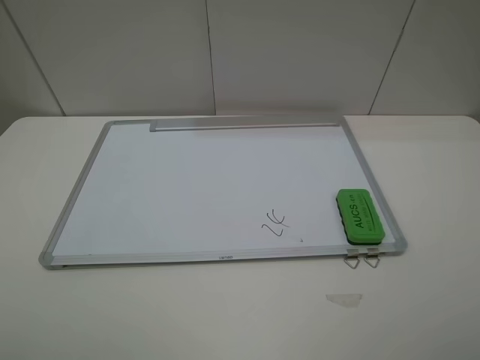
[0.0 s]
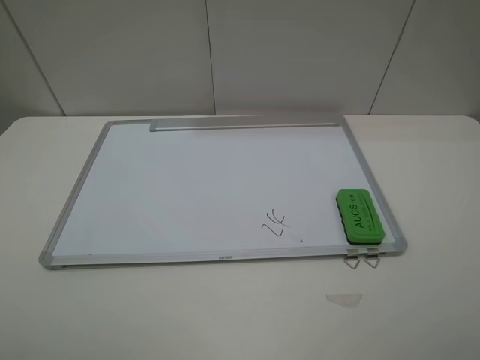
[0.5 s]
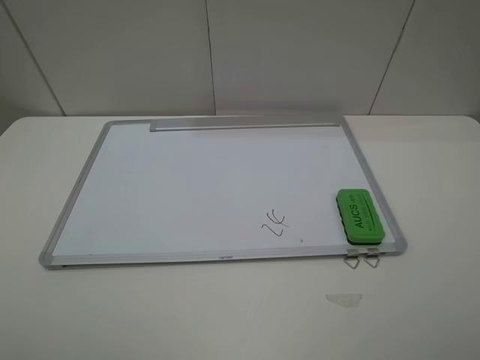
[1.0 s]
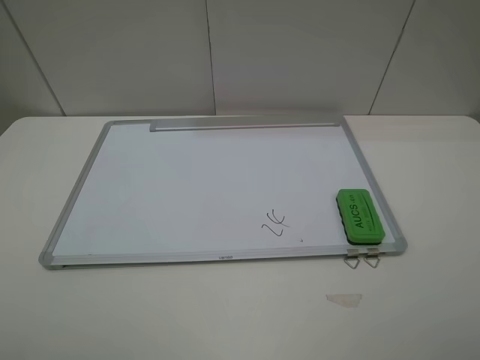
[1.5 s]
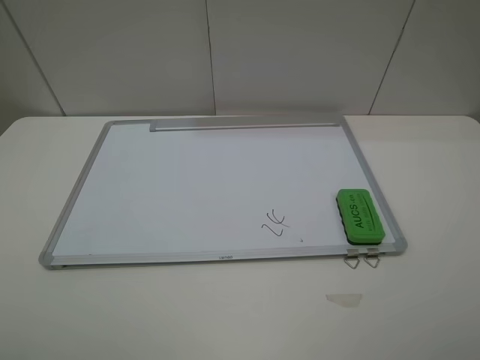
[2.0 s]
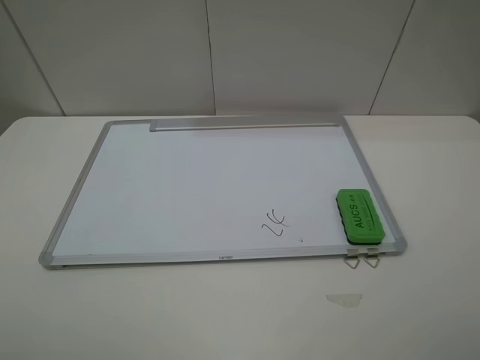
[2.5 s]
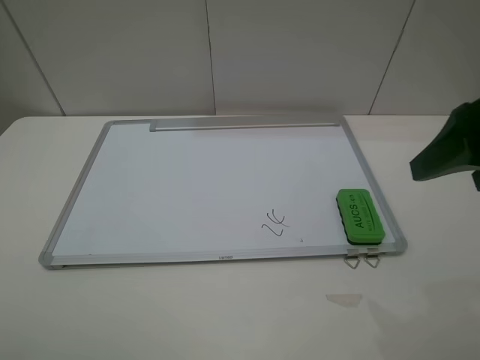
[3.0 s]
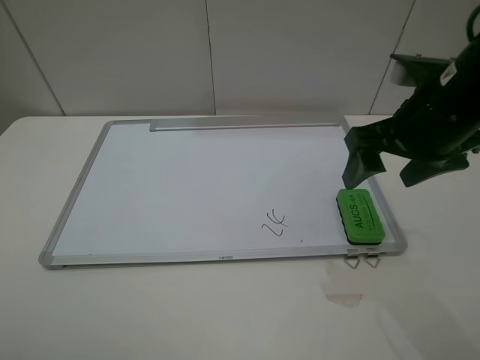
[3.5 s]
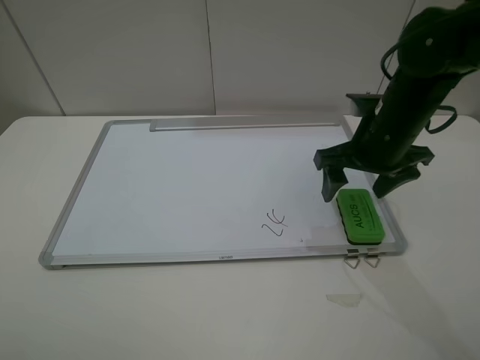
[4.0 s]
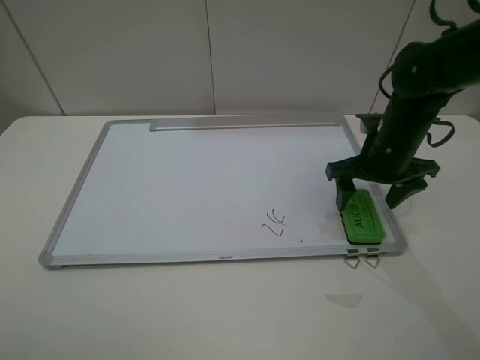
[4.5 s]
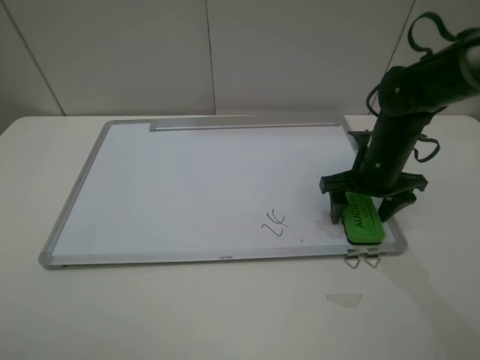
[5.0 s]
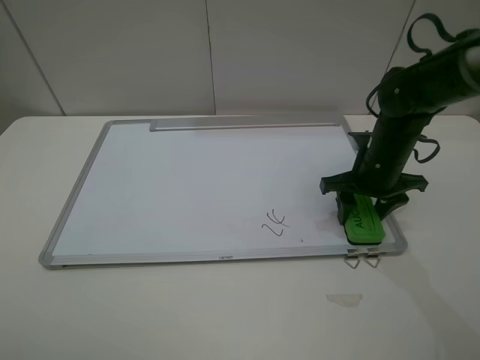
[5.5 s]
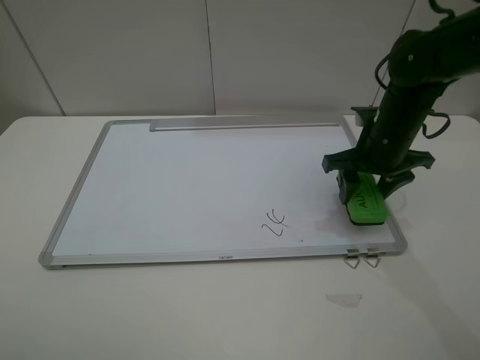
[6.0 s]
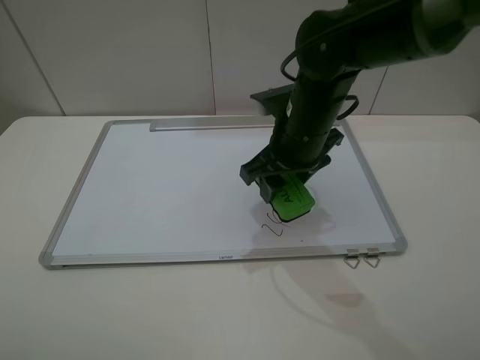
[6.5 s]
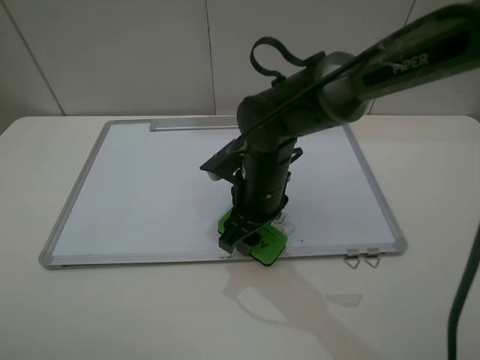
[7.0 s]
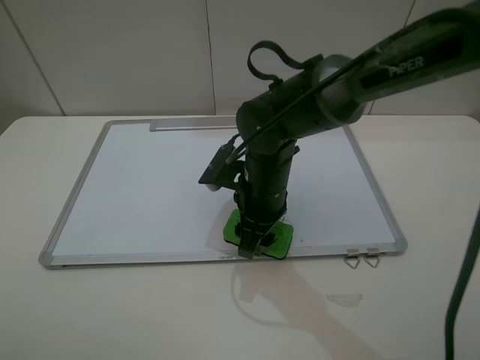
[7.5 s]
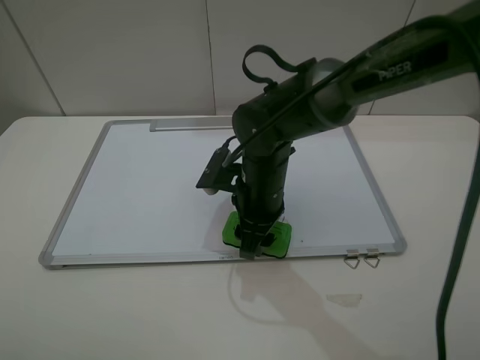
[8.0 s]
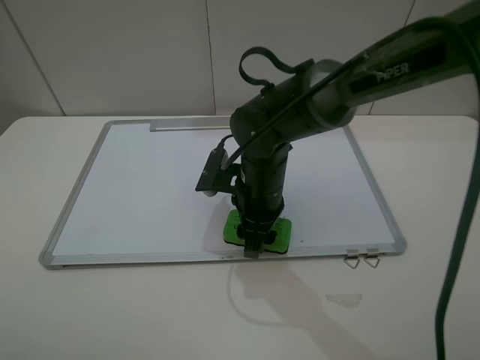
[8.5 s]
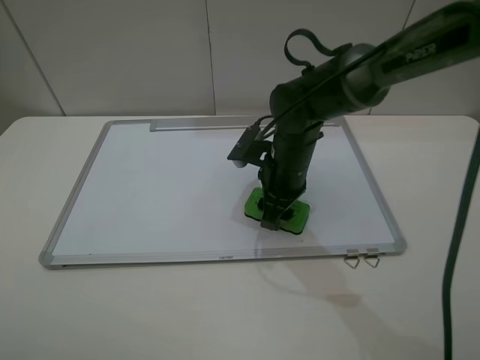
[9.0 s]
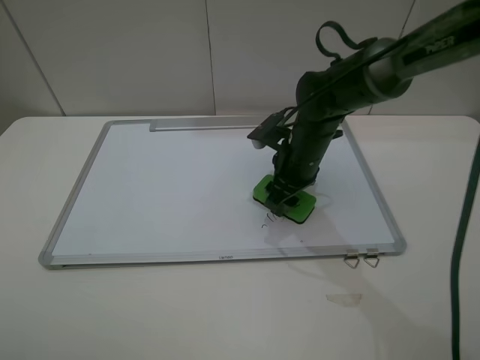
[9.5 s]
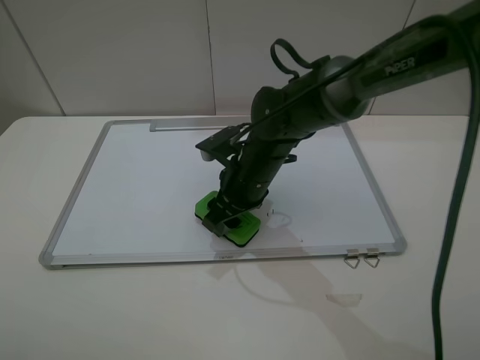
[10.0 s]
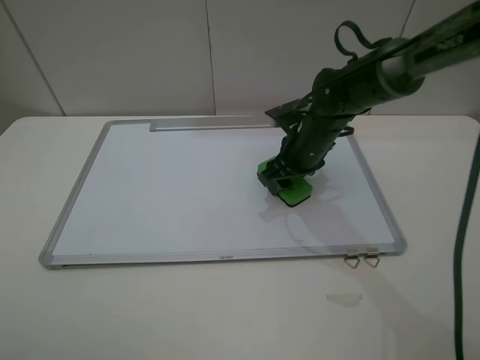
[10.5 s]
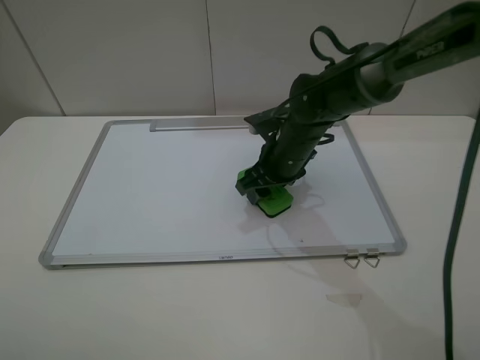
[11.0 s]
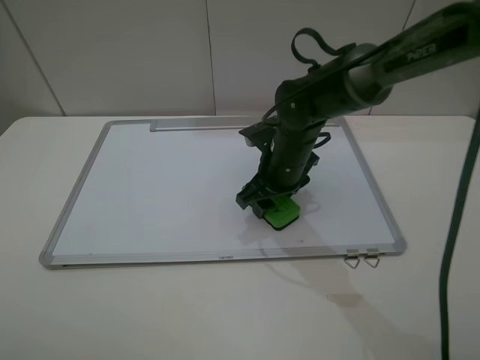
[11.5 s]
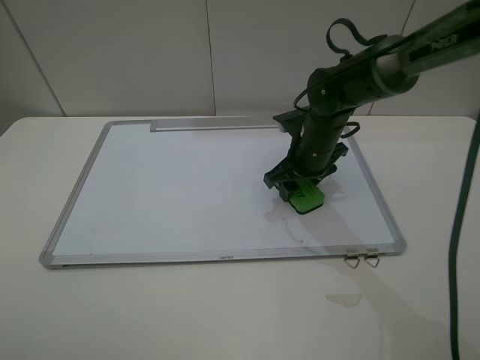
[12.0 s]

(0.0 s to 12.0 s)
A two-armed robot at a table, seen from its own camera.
Step, 0.0 s - 5.5 s: Grasp the eraser with the right gripper.
0.0 s - 2.0 s: The two grippers keep their place.
2.0 s - 4.0 s: The right gripper shifts approximately 30 cm forward.
4.0 s - 6.0 s: The right gripper closes up.
6.0 s - 8.0 s: The right gripper travels to the left by roughly 15 cm.
10.0 s - 12.0 s: The right gripper goes left and right, approximately 10 cm each way, reversing 2 times.

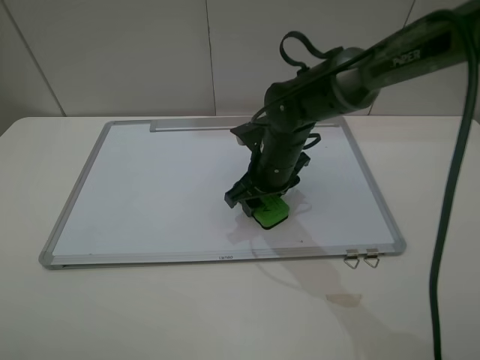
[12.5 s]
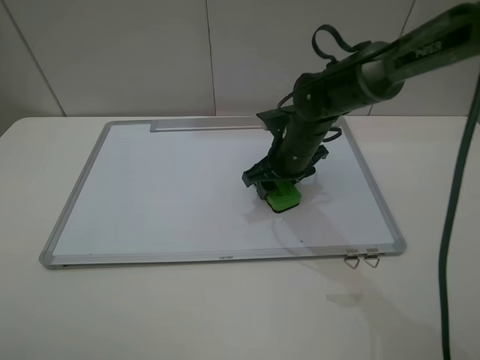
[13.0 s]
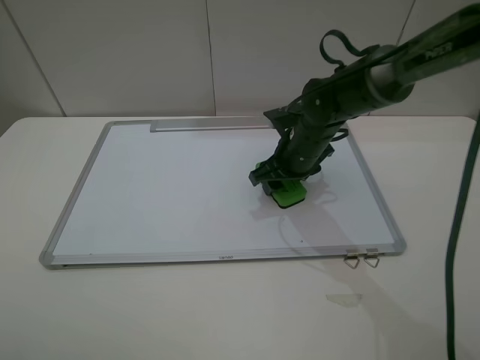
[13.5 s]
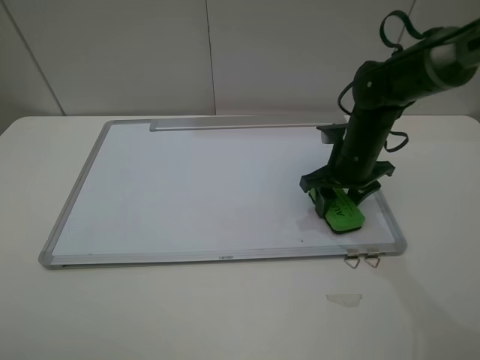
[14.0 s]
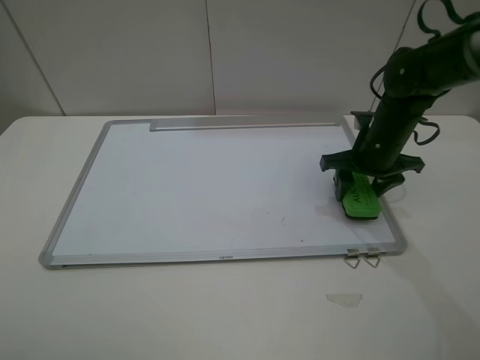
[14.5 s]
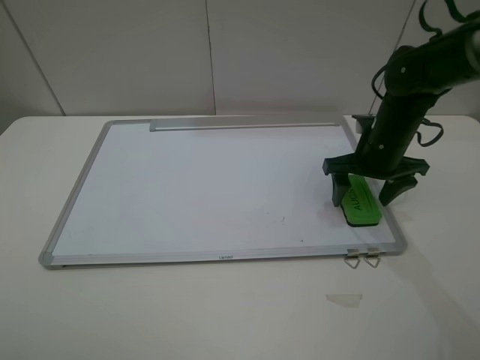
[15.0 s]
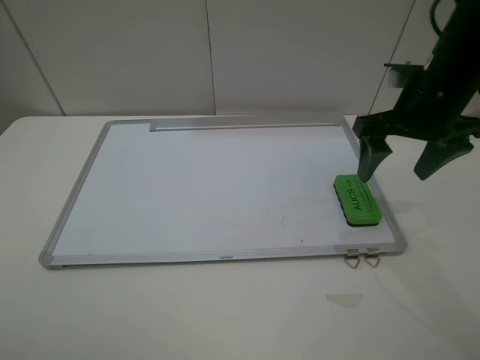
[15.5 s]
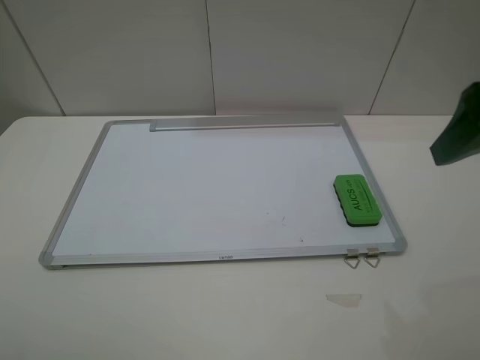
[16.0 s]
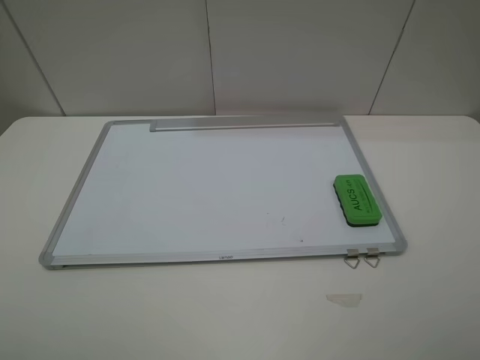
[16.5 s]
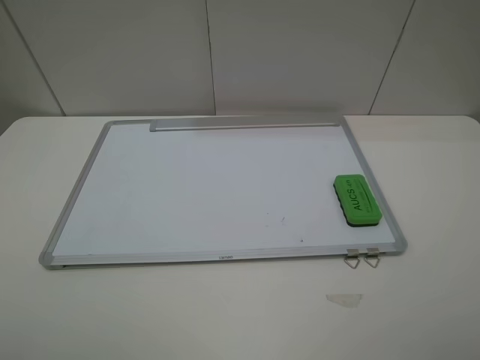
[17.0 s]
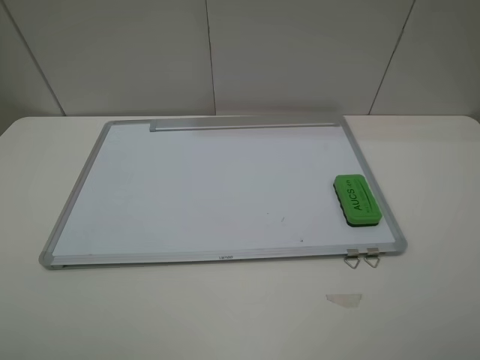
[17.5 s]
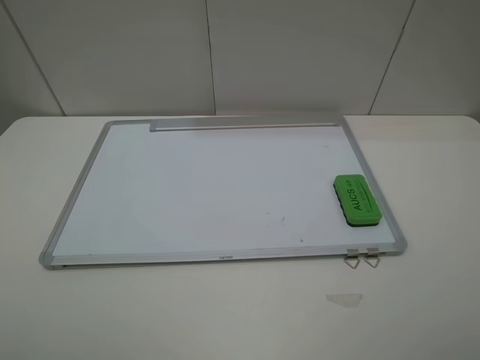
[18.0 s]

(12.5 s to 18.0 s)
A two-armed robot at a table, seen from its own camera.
Step, 14.0 s - 14.5 s: Place the eraser with the right gripper.
12.5 s - 14.5 s: The right gripper is displaced to the right by some 15 cm.
14.5 s - 16.0 s: The right gripper shifts roughly 30 cm upward and backward, and opens its fingers.
16.0 s - 18.0 s: The right gripper travels backward by some 15 cm.
